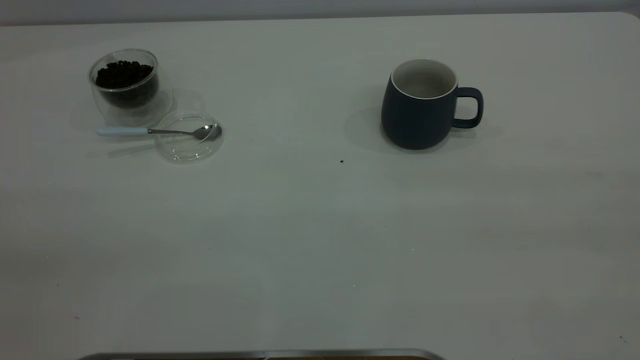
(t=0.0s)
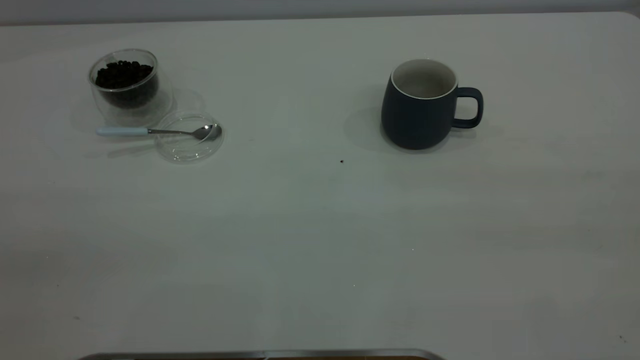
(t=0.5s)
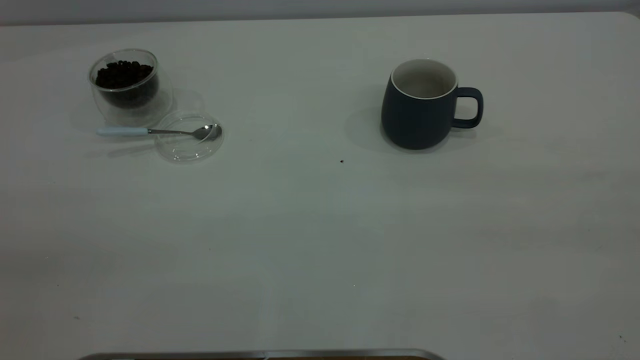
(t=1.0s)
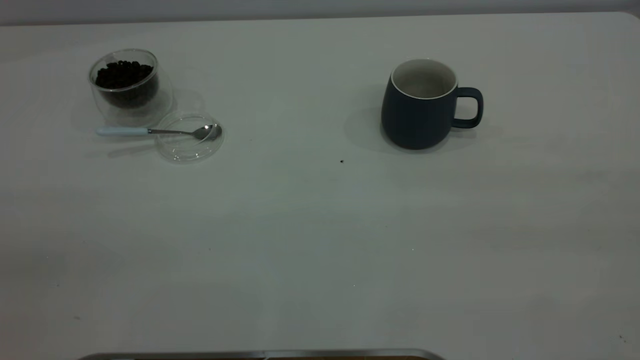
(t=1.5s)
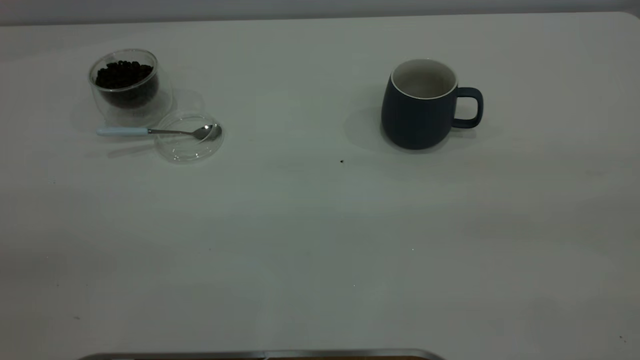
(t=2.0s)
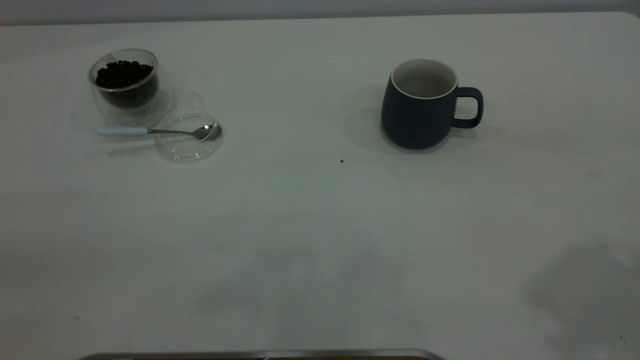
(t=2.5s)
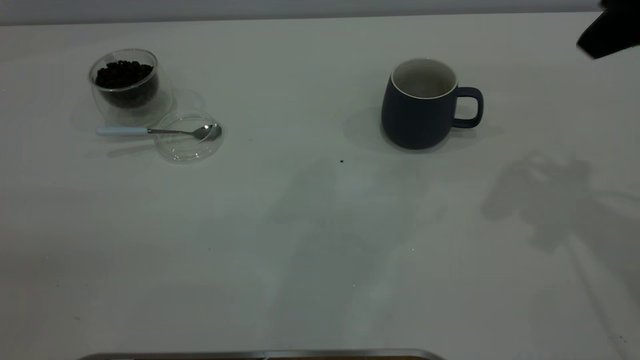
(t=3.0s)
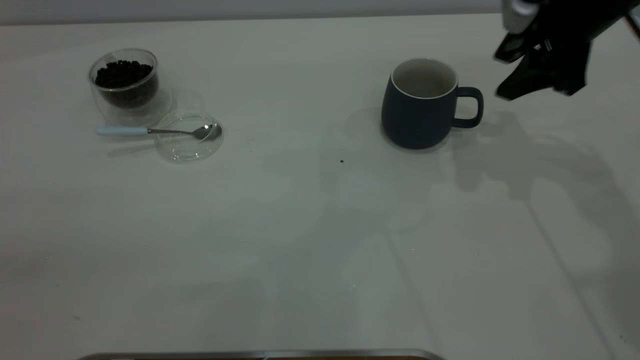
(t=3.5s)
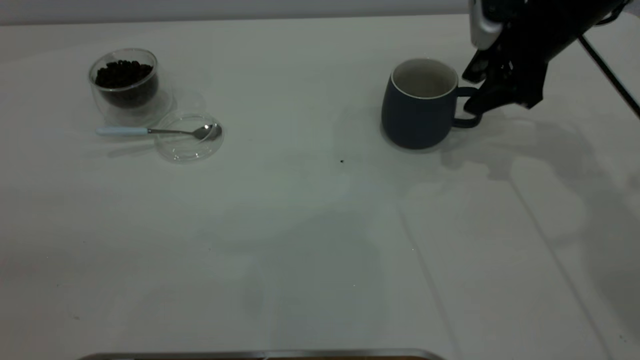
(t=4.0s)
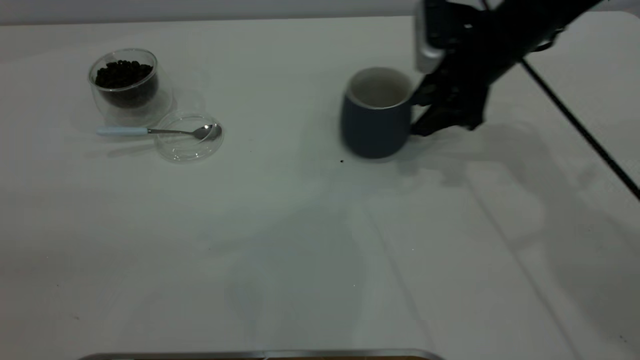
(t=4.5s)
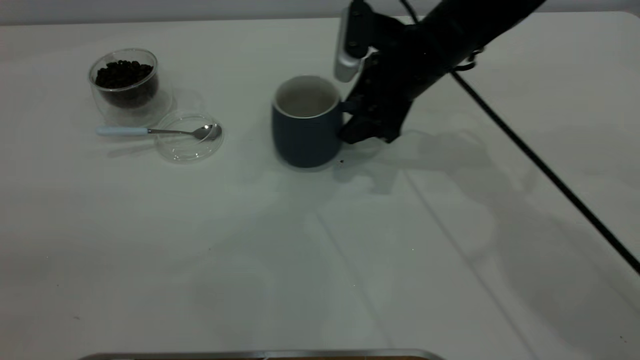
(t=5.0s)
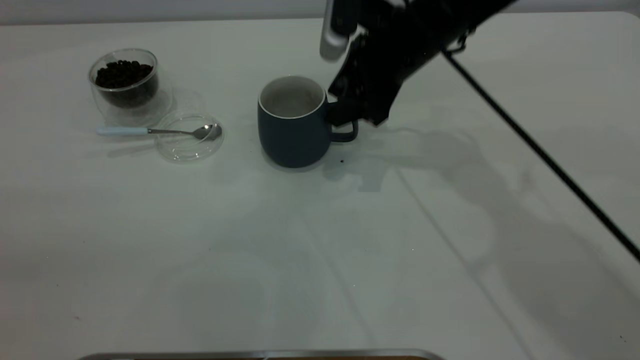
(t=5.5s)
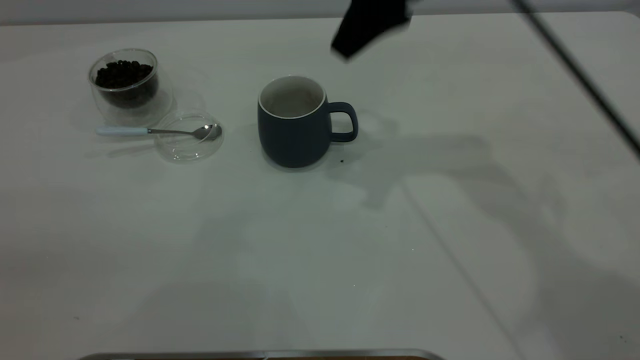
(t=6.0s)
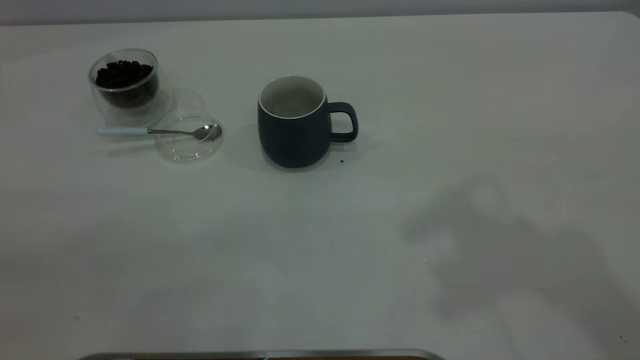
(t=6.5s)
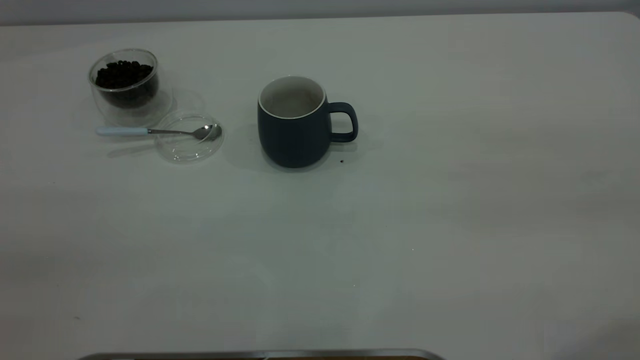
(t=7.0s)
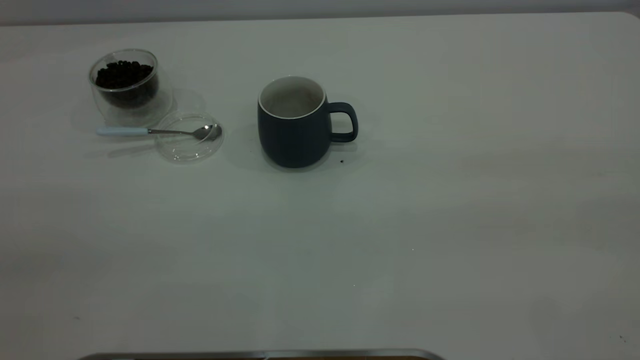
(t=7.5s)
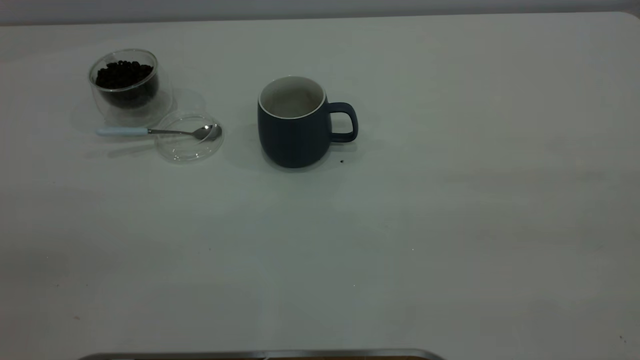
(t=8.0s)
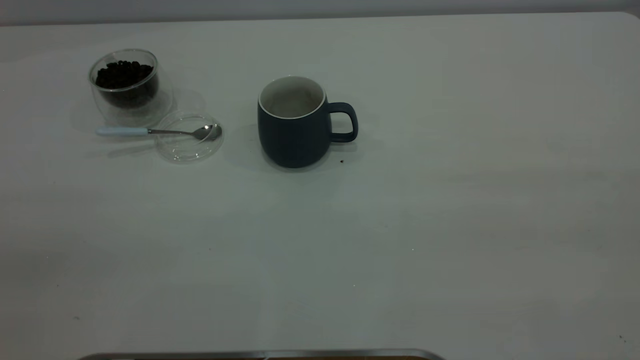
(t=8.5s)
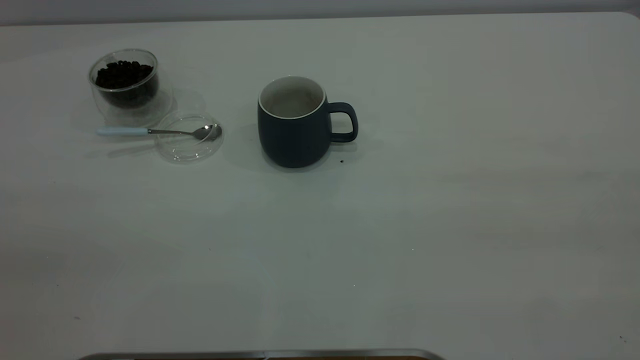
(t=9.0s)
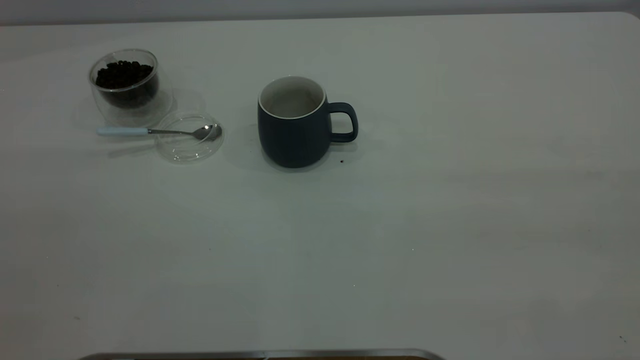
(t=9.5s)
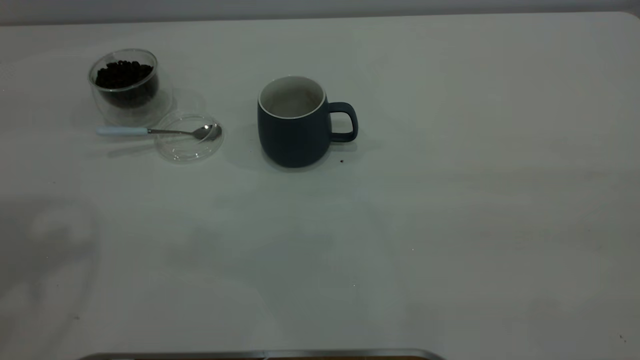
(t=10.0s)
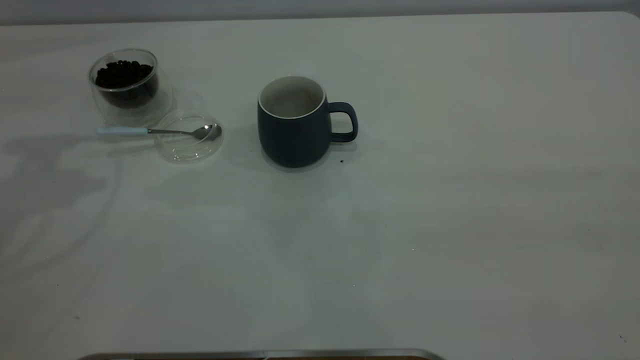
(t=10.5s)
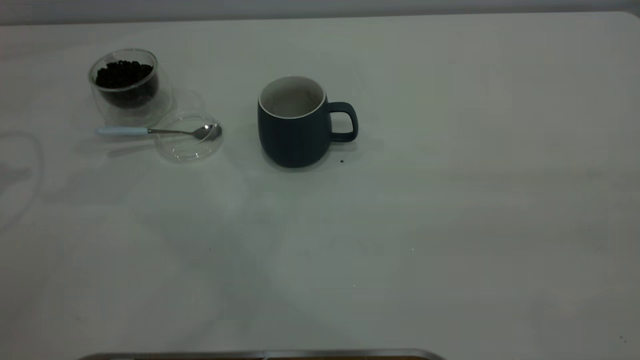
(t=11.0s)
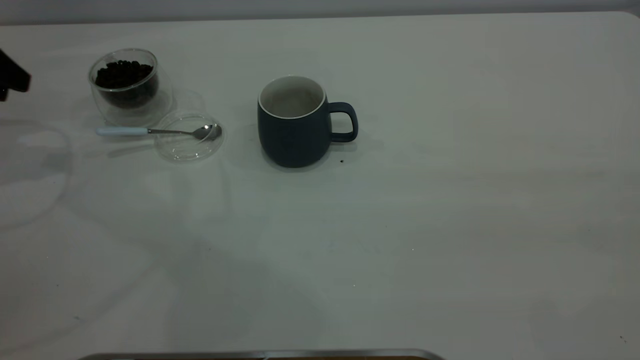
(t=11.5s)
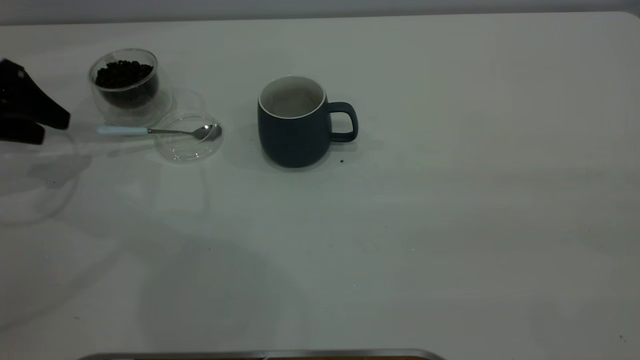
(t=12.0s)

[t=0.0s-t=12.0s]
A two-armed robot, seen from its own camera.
Task of the whole recording: the right gripper place the grey cup in the center of the table, the left gripper take the blue spoon from the cup lid and scoop out the coffee beans from the coffee cup and put them into the grey cup, the left gripper put the spoon back into the cup lid.
Step, t=0.0s to t=6.0s: Move the cup to the center of view.
t=2.0s to t=4.0s: The right gripper travels forward and downward by some 50 cm, and opens.
t=4.0s to t=6.0s: The right gripper moves upward and to the left, approximately 20 cm.
t=6.0s to t=8.0s: The right gripper goes roughly 40 cm backward and to the right.
t=10.0s to t=12.0s: The left gripper travels downward, forward and to the left by approximately 25 cm.

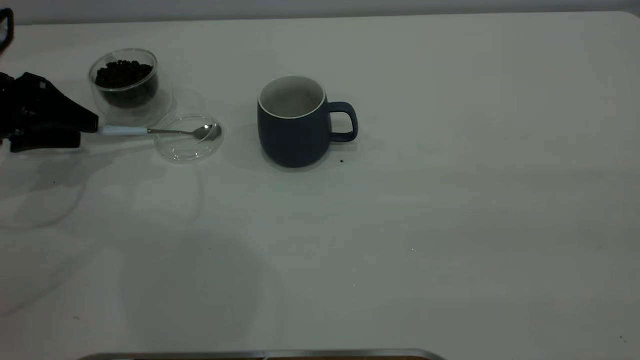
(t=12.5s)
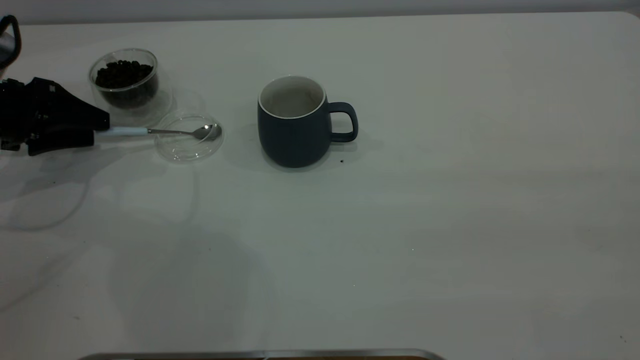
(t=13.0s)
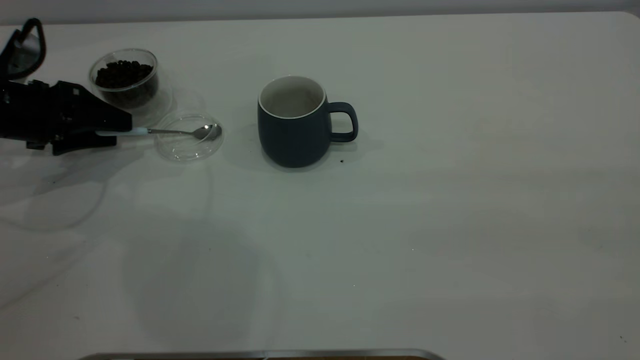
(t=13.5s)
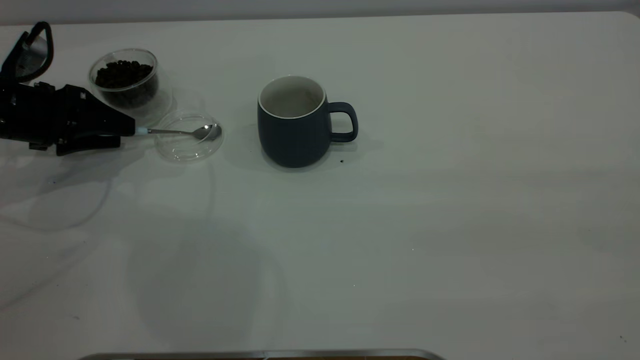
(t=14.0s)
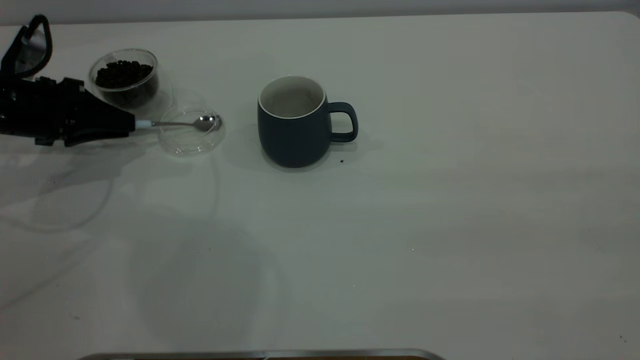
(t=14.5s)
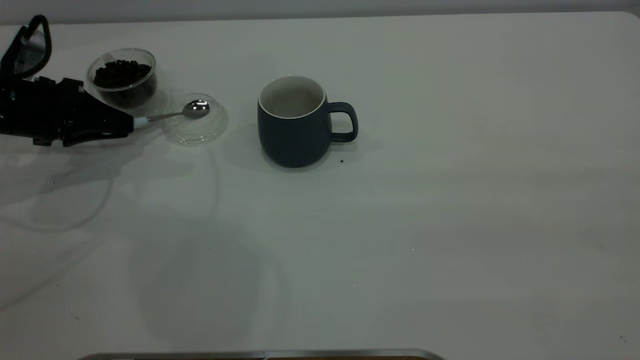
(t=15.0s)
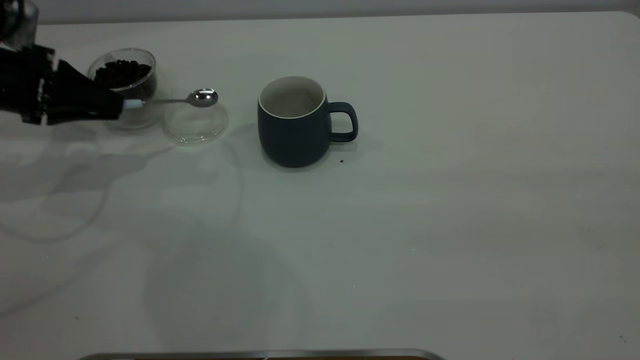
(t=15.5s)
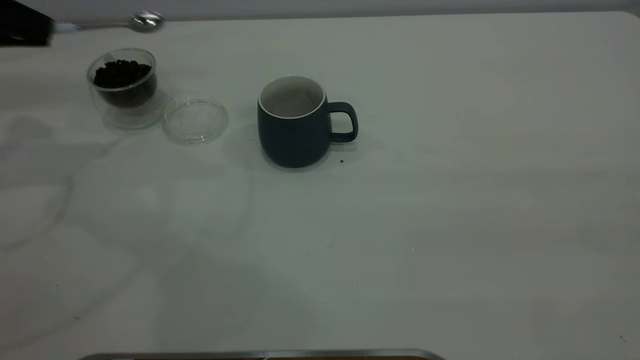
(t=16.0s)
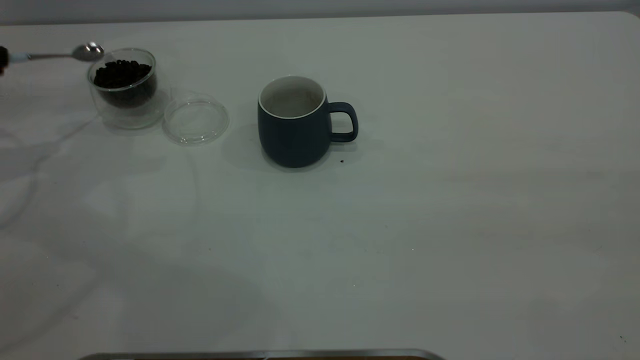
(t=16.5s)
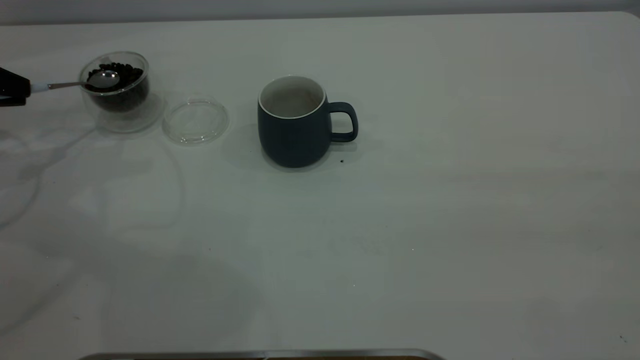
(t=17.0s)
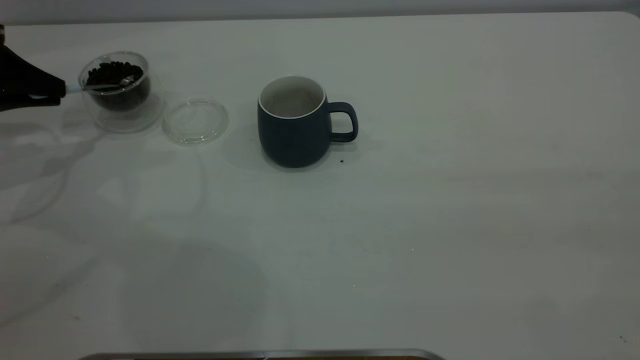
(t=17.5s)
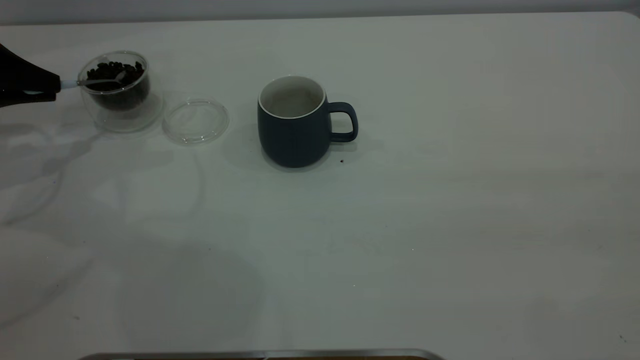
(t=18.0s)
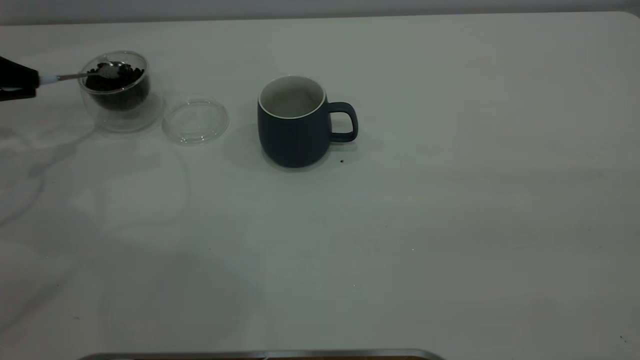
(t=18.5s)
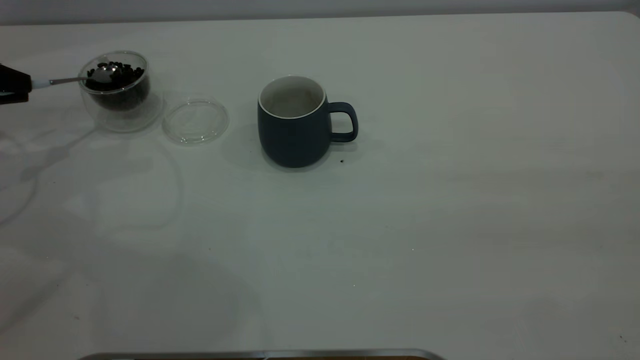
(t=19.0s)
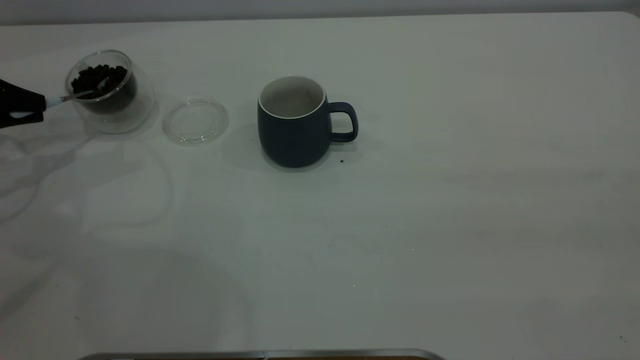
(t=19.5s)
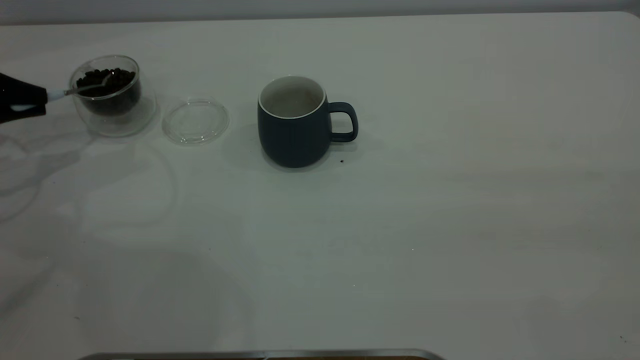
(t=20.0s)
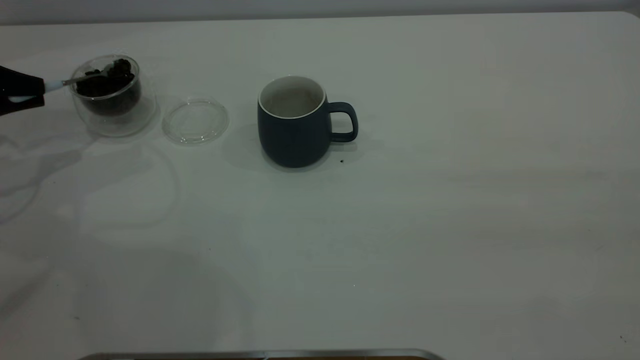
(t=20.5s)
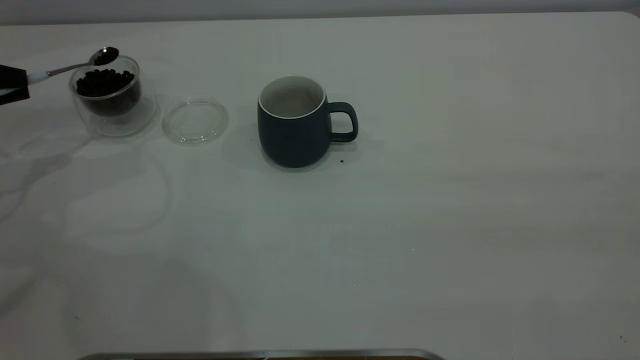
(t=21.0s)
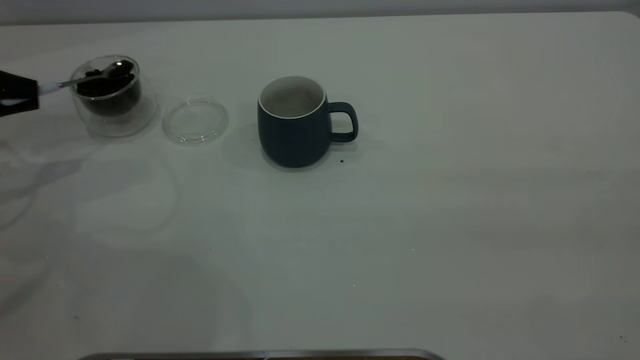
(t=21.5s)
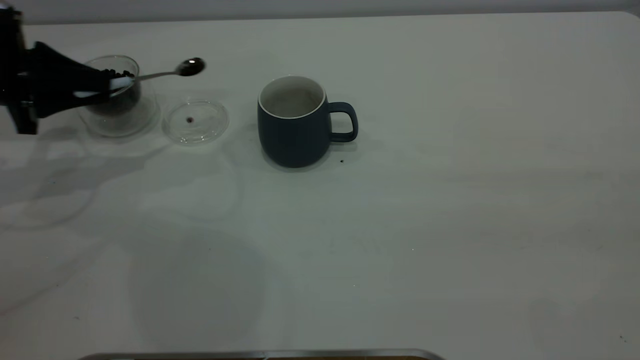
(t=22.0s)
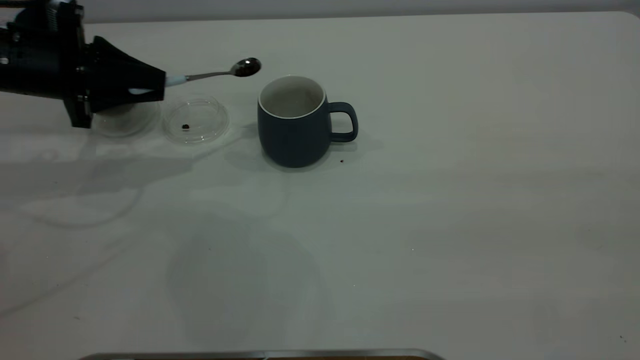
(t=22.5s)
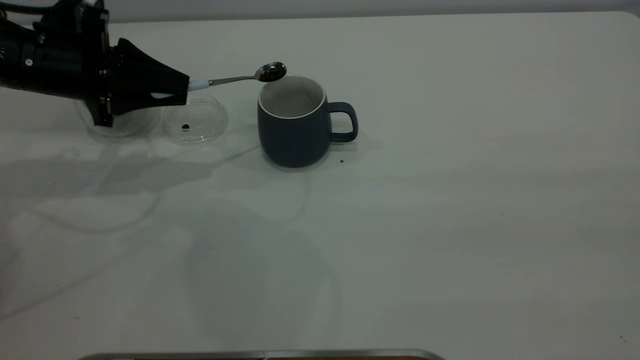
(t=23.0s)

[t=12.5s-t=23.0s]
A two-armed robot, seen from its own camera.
Task of the whole recording: the right gripper place the grey cup in the center of the table, the left gripper take the blue spoon from the cup lid and scoop out the coffee beans from the coffee cup and put them into the grey cup, the left gripper put the spoon back into the cup lid.
Step, t=12.5s to t=15.5s: Pick up the spoon.
t=12.5s to t=14.5s: The left gripper closes its fingers.
t=14.5s to t=16.5s: The left gripper goes approximately 15 cm upward and to the left.
t=16.5s to t=19.0s: The grippers stay close to where they were, moving slightly.
t=19.0s to t=21.0s: The grippers move only a little.
t=21.0s to t=23.0s: The left gripper heads to the right, covering some 15 cm.
